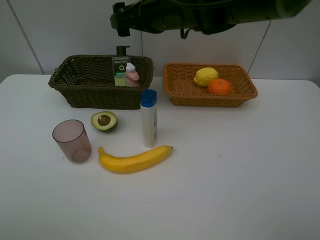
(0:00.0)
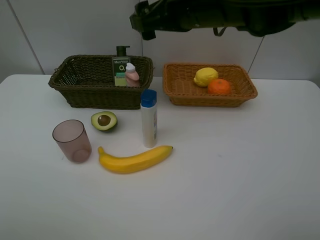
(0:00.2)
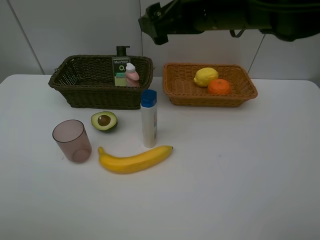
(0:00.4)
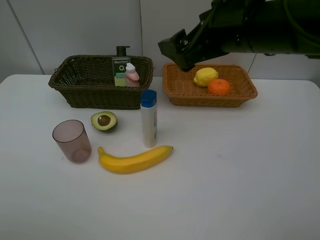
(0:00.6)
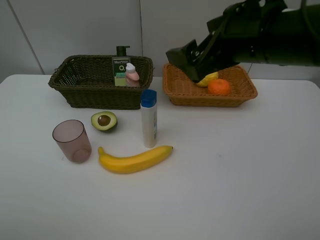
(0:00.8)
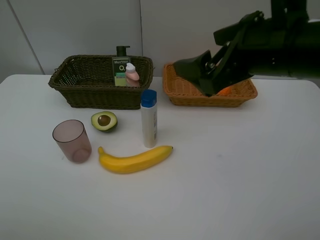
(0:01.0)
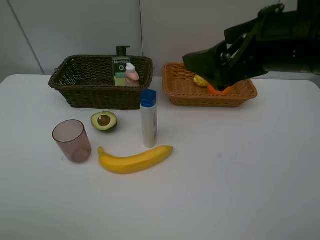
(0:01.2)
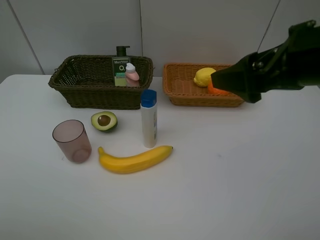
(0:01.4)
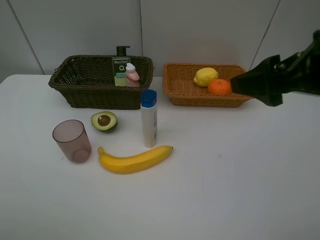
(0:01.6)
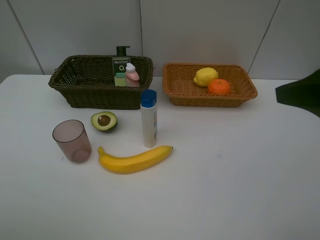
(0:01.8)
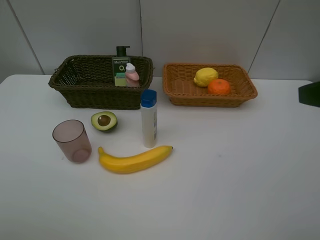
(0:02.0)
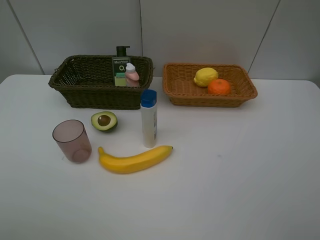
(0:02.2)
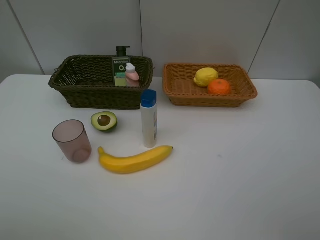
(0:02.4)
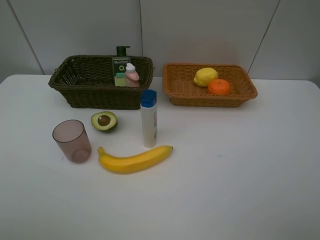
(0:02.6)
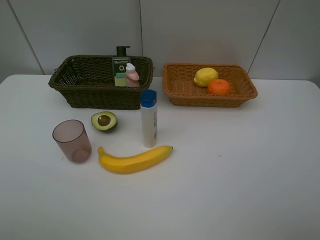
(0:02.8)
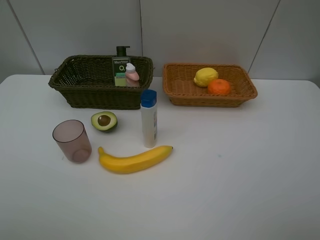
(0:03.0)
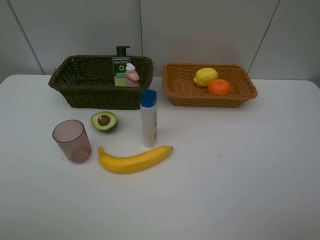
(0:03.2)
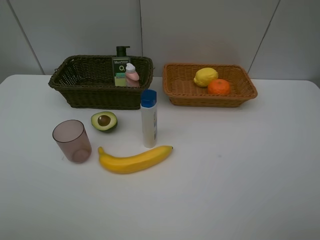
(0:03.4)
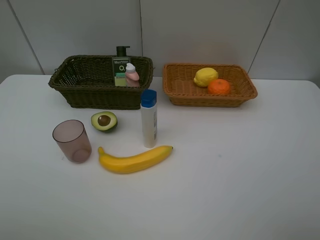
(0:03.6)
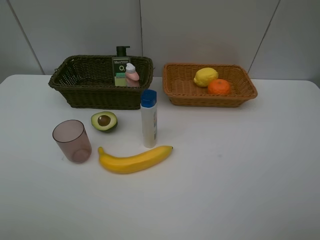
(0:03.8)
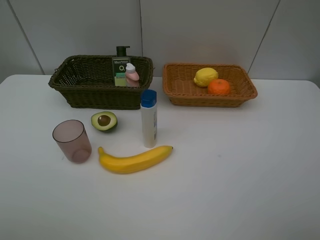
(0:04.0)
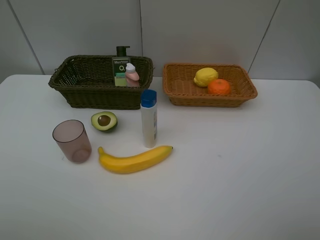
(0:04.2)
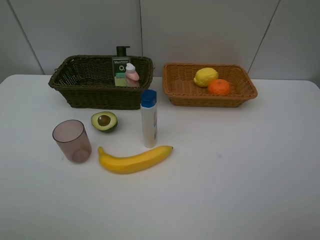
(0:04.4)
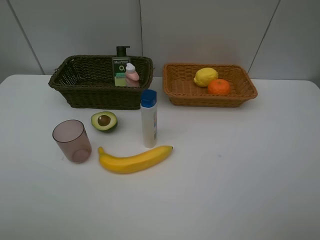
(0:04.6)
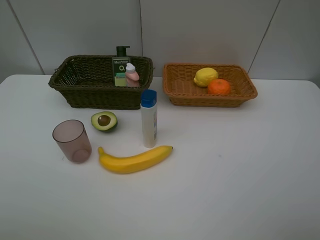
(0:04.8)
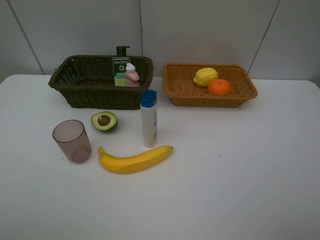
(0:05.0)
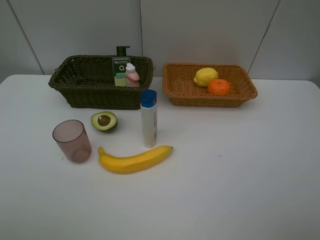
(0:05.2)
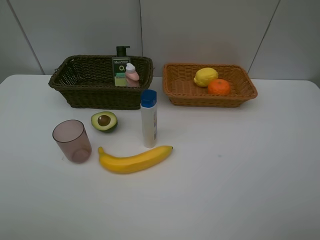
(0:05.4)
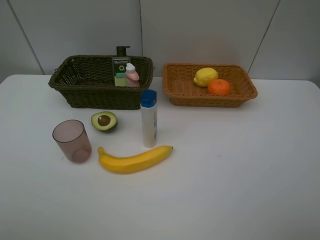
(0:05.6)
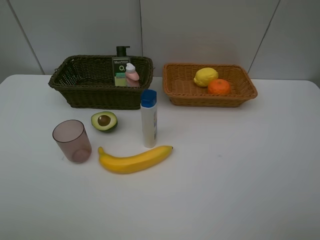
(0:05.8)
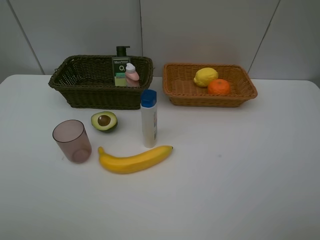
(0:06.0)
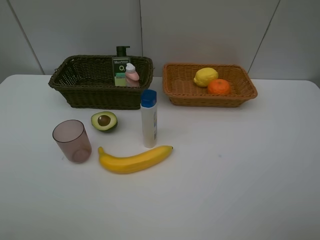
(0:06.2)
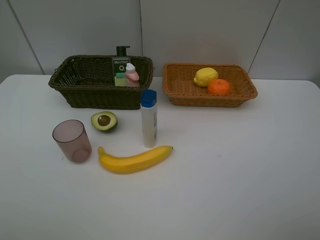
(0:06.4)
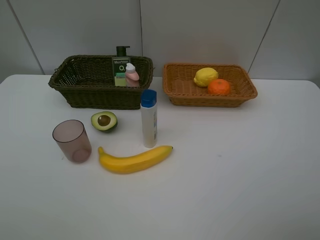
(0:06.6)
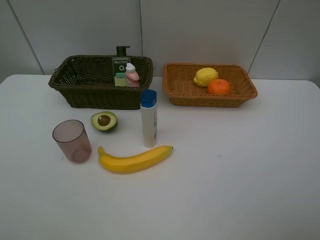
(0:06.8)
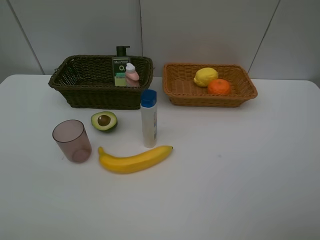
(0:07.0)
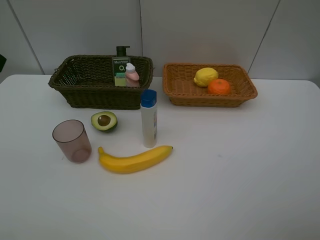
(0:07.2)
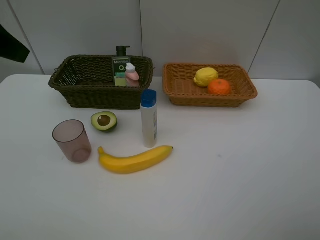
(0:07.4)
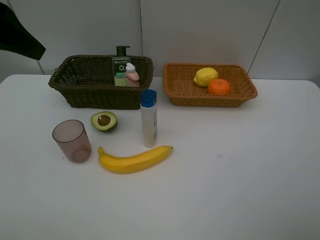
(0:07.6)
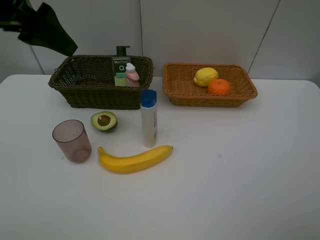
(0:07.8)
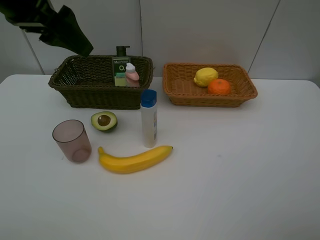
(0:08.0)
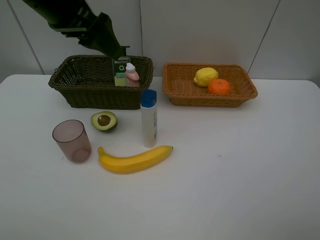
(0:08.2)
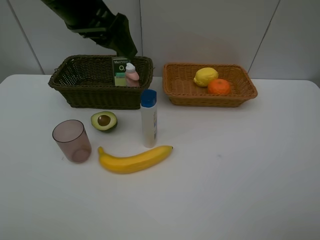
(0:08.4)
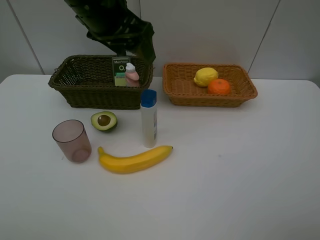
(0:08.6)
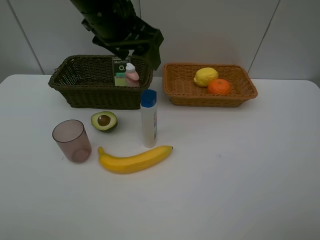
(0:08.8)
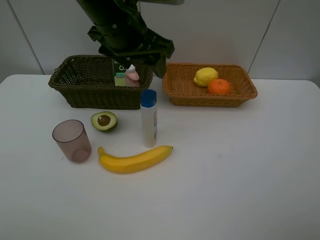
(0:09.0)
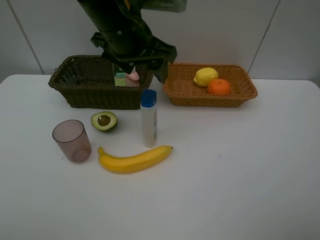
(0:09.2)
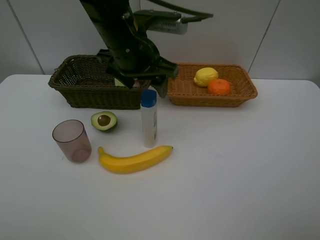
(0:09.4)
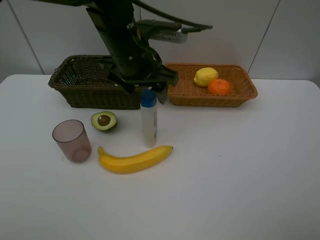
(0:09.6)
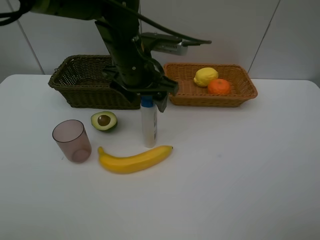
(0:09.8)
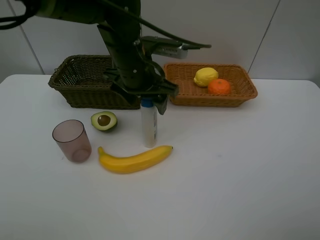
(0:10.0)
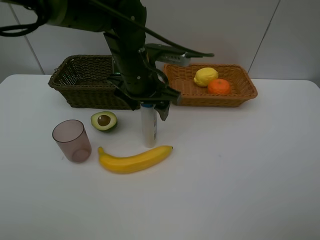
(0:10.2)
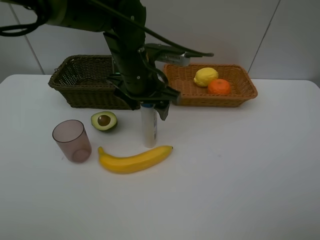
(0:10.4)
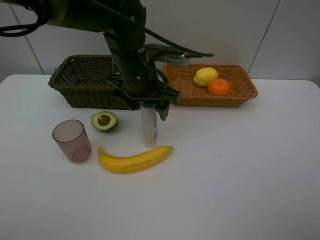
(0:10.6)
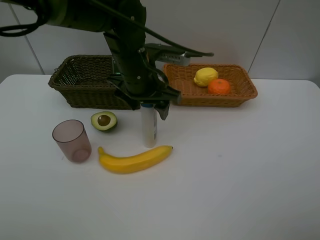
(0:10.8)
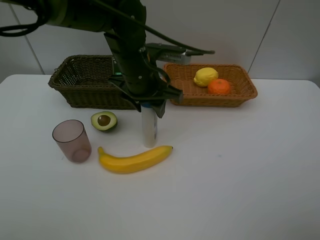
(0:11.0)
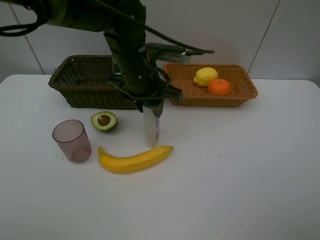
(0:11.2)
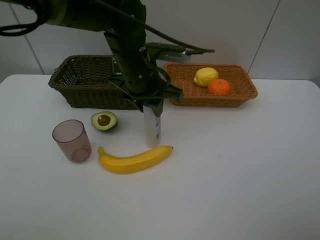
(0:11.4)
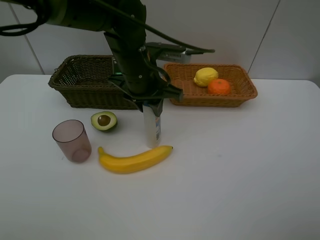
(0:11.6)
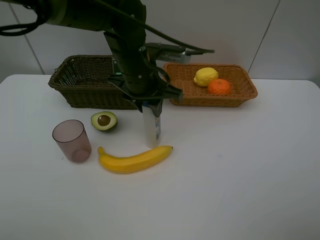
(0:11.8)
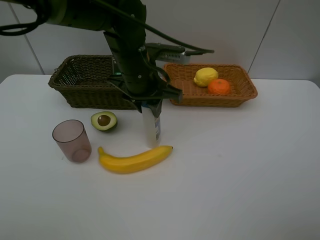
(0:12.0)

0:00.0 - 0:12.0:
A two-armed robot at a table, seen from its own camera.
Task of the whole recording: Place multiple objects separately in different baskets.
0:00.0 - 0:01.6: The right gripper heads backward and to the right, covering some 25 cm.
0:01.6 - 0:03.0: The right gripper goes approximately 15 cm backward and to the right.
0:03.0 - 0:04.4: Both grippers stay about where they are.
0:06.0 - 0:07.6: The left gripper heads forward, covering about 25 cm.
0:07.6 - 0:09.0: The left gripper is displaced to the right by approximately 20 cm.
0:09.0 - 0:10.4: The left gripper heads downward, covering about 10 cm.
0:10.4 - 0:12.0: The left gripper closes its fingers.

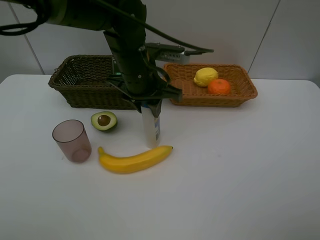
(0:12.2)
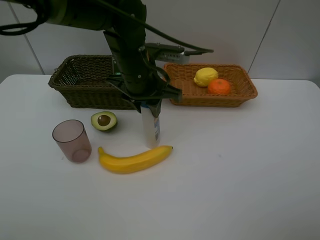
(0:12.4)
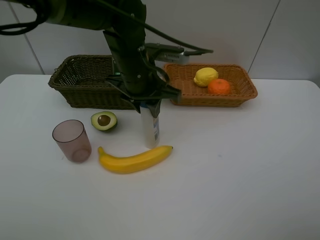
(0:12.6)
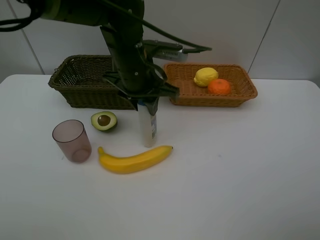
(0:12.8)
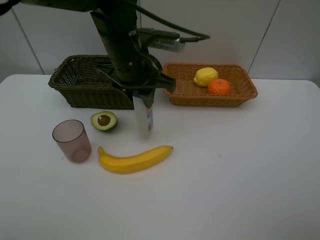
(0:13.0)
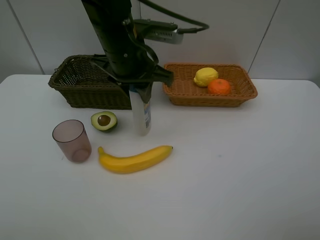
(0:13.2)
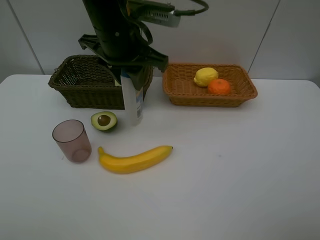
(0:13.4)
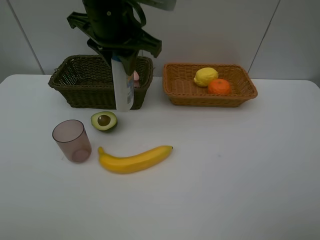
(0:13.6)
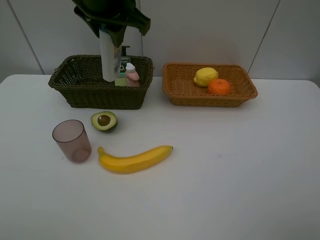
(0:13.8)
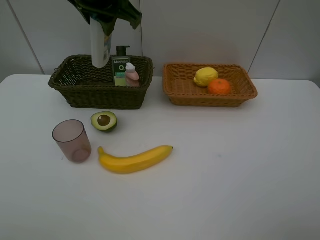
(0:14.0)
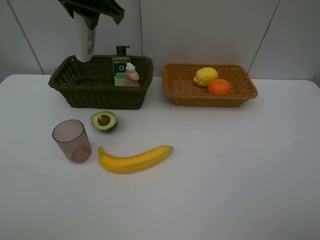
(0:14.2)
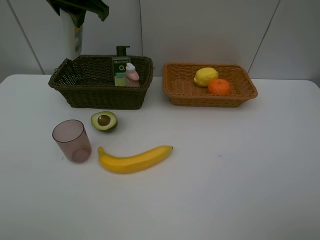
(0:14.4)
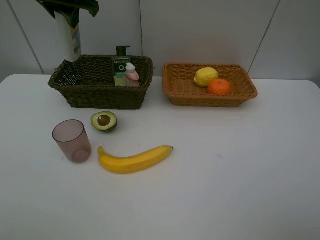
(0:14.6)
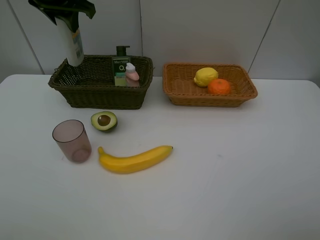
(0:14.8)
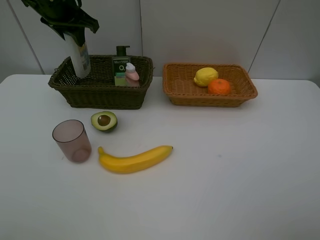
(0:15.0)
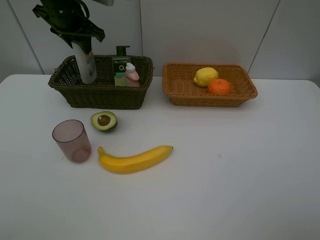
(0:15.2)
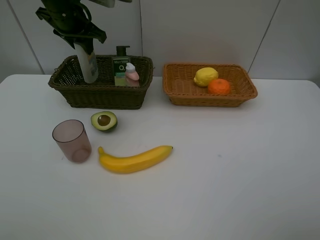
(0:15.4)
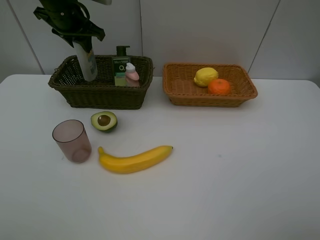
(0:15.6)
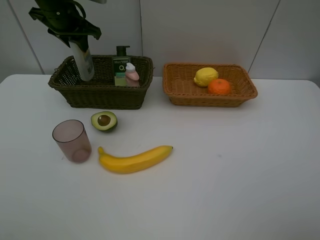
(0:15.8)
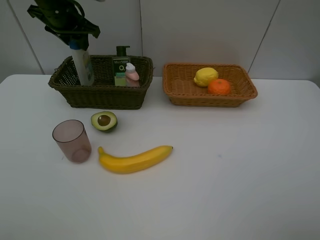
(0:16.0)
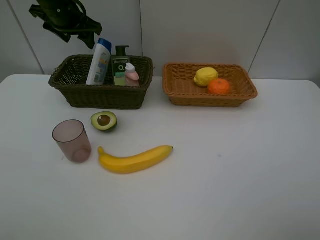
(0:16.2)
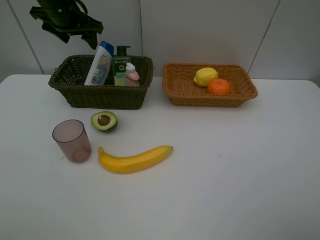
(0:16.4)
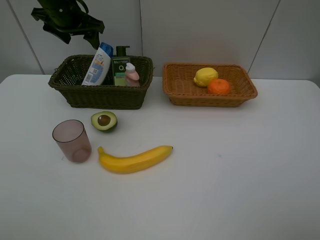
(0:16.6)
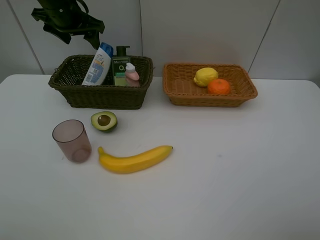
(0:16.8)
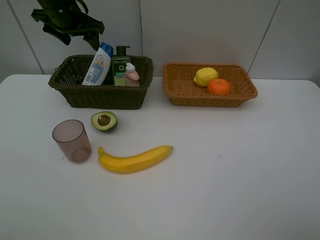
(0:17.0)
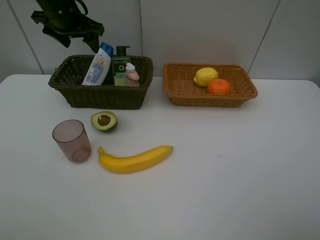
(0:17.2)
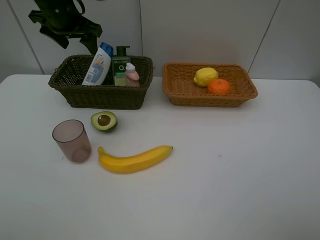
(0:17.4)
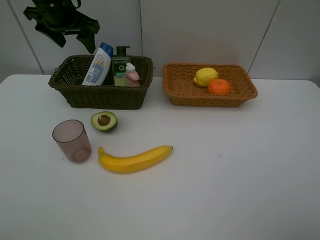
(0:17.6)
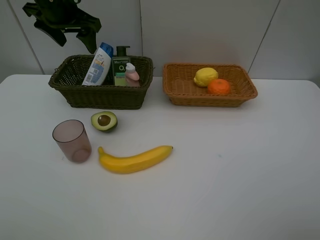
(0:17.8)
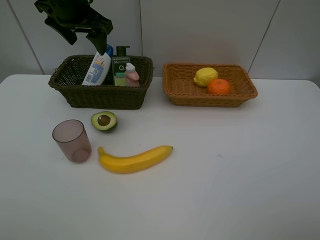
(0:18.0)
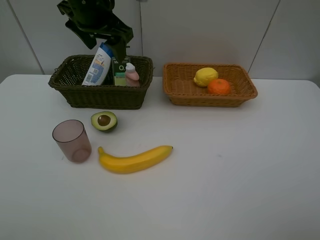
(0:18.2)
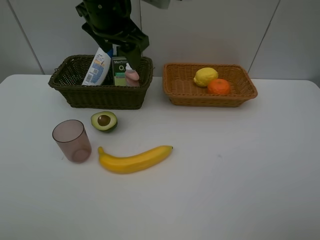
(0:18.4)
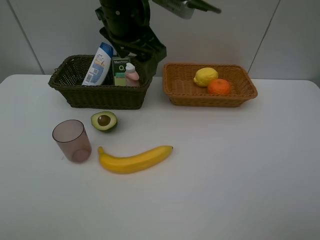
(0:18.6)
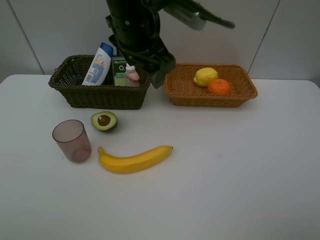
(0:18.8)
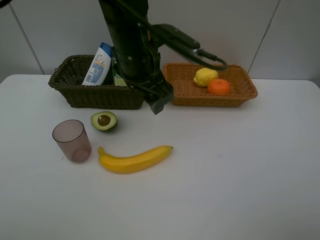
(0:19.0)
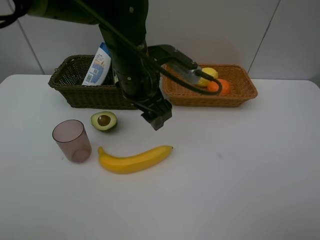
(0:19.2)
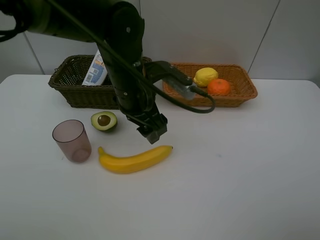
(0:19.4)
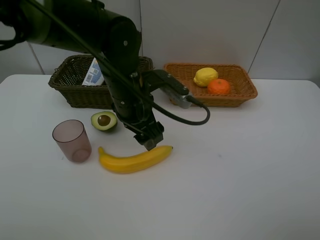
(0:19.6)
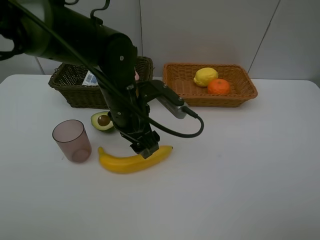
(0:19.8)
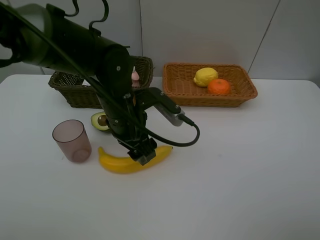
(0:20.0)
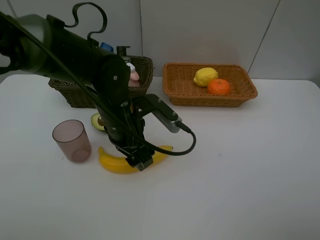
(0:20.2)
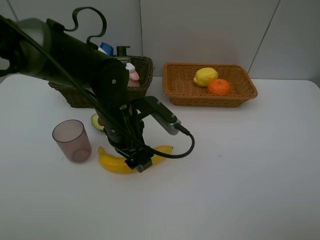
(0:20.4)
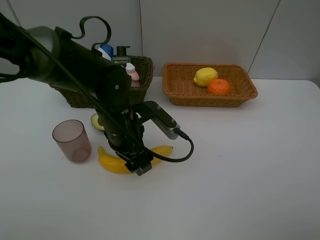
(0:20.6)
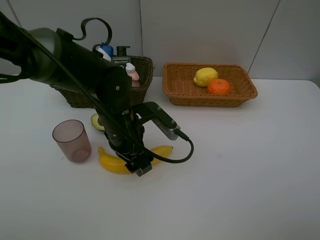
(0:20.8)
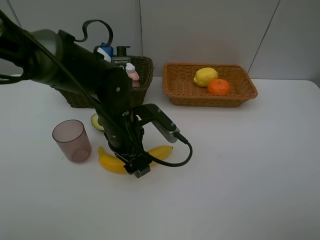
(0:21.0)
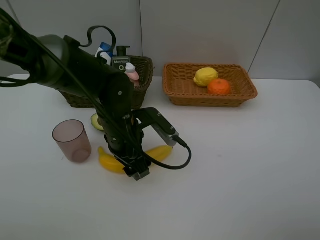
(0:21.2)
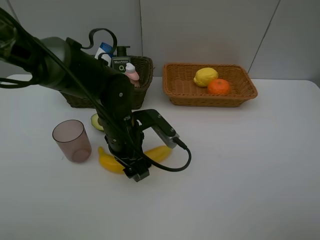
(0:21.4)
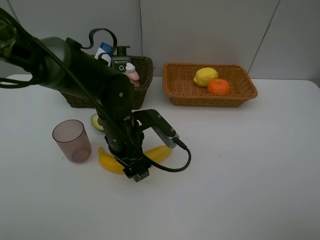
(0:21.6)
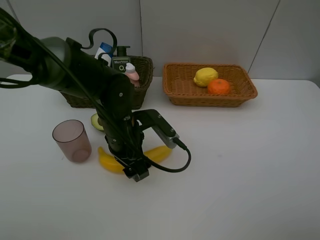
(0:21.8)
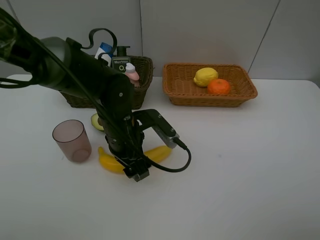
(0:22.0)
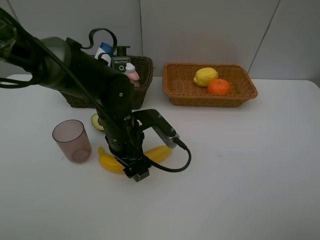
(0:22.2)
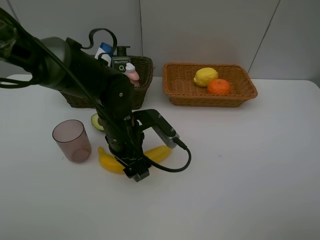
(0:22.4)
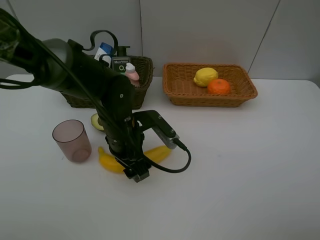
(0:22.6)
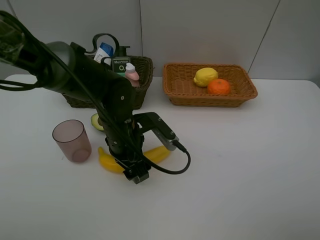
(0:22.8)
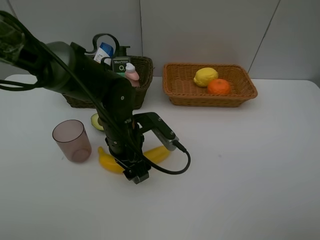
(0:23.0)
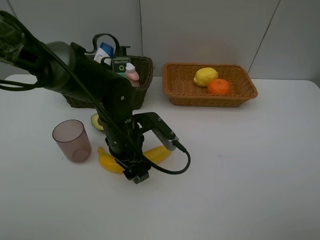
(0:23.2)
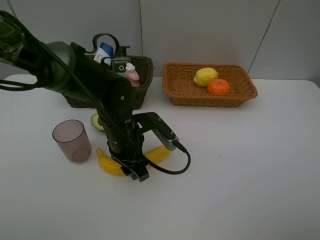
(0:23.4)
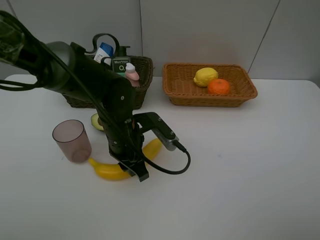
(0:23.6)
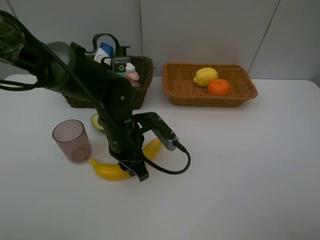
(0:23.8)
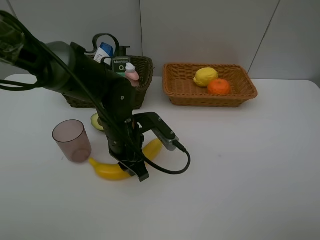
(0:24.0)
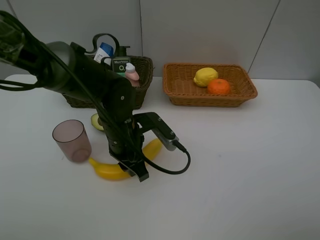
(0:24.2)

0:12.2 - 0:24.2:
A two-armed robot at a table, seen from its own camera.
Task of the whole recording: Place multiple objects separately in different baskets.
Step, 0:13.4 - 0:16.4: Place the shampoo in the dark basket with left gripper.
0:12.2 - 0:13.8: The left gripper heads upward, covering about 15 cm.
0:13.8 - 0:15.2: The left gripper heads to the left, forward and downward, covering some 15 cm.
0:15.2 - 0:16.6: The left gripper opens.
0:16.6 - 0:18.2: The left gripper is displaced to the right and backward by approximately 15 cm.
0:18.2 - 0:19.8: The left gripper shifts approximately 20 cm downward and backward.
0:19.8 - 0:21.2: The left gripper changes place by some 5 cm.
0:21.2 - 0:22.6: Neither gripper changes place.
0:22.6 - 0:24.2: The left gripper closes.
